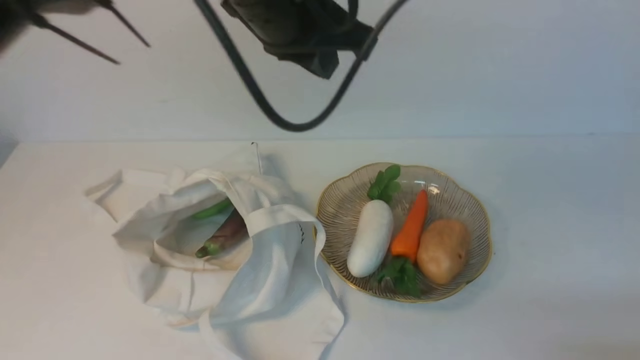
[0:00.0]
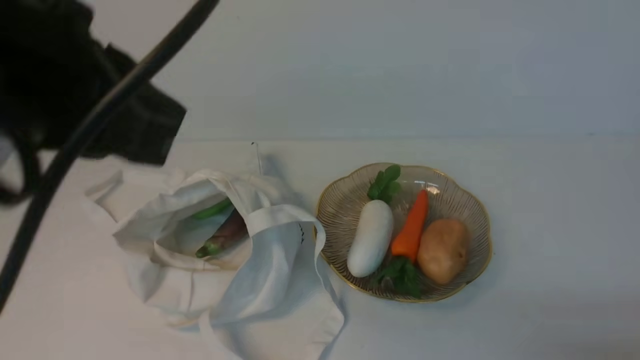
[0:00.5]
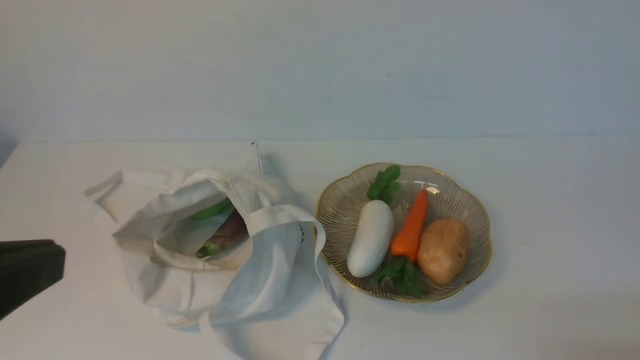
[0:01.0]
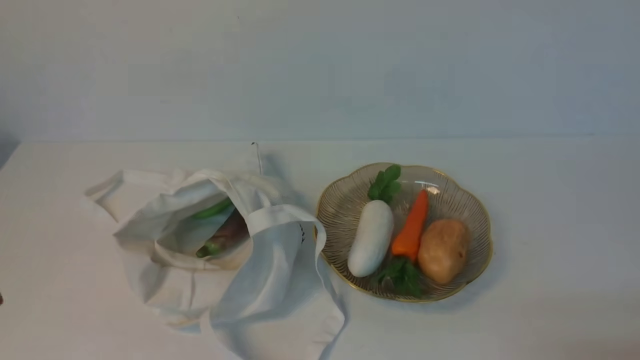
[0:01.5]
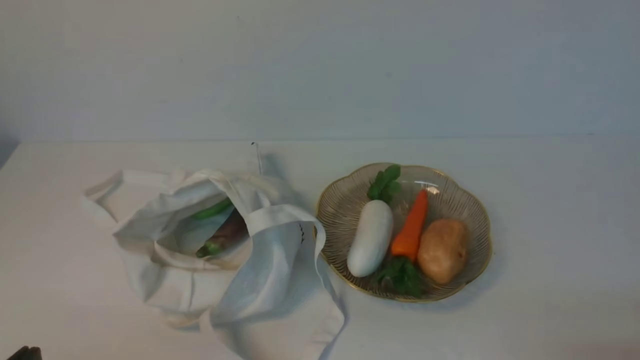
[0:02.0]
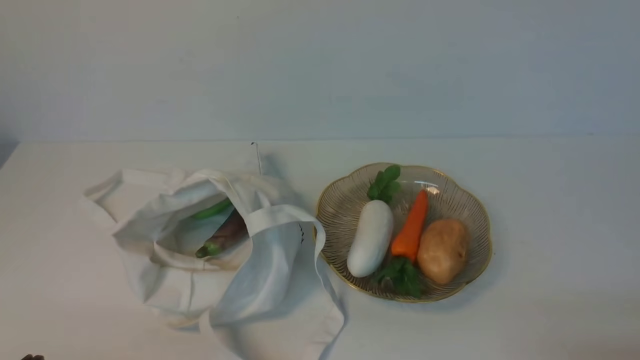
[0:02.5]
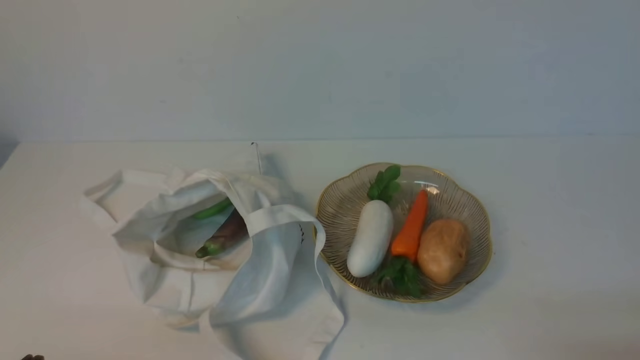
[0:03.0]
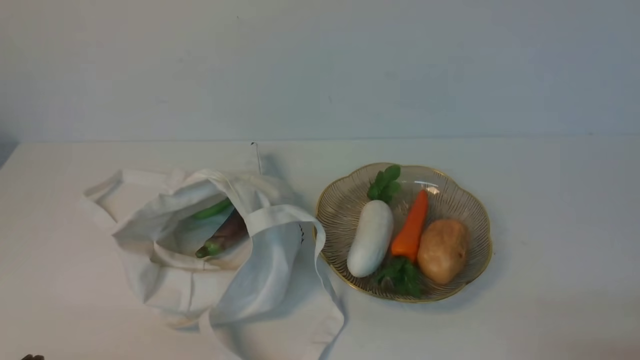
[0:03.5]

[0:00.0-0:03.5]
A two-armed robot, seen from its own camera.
Task of the whole recording: take vegetables from cloth bag on white table place on plate.
0:00.0 to 0:02.0: The left gripper is displaced backward, to the left and downward by some 40 cm.

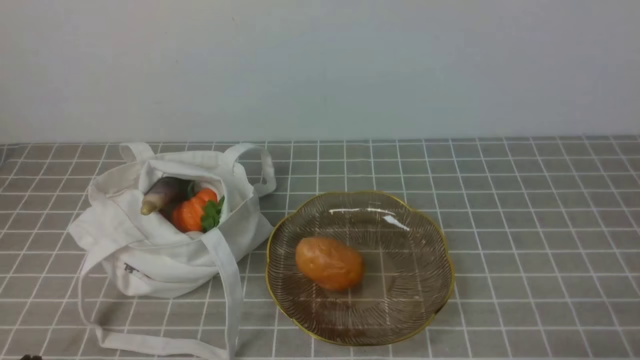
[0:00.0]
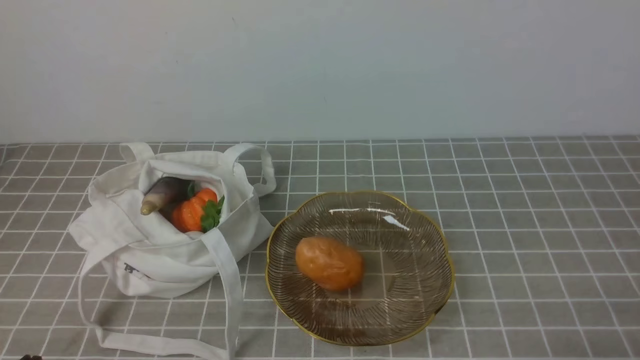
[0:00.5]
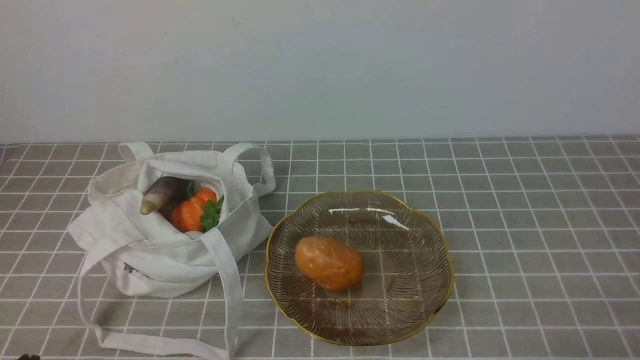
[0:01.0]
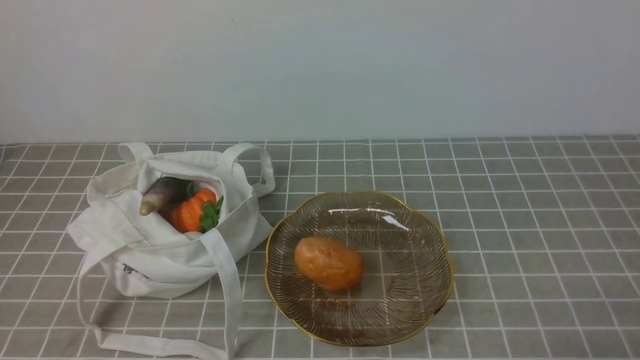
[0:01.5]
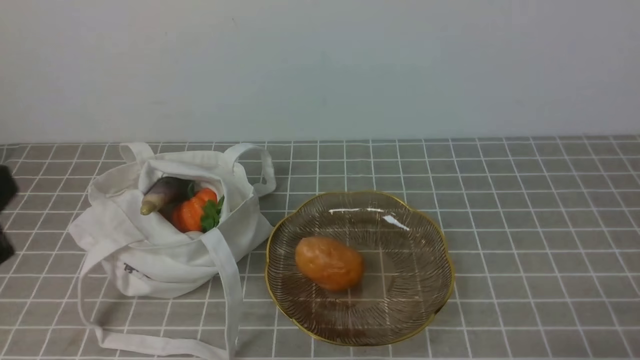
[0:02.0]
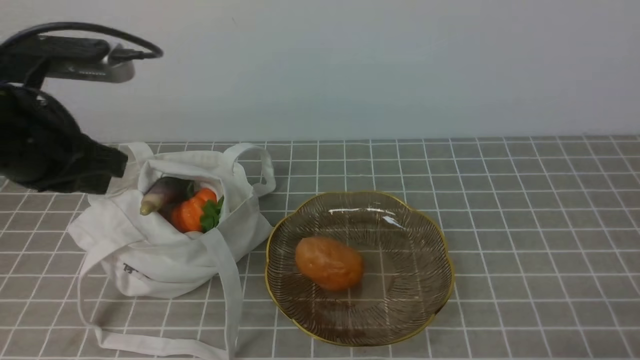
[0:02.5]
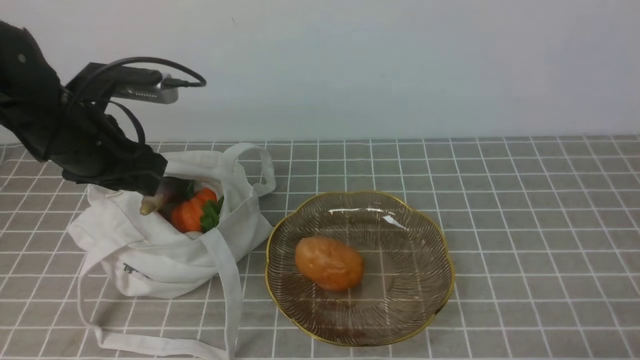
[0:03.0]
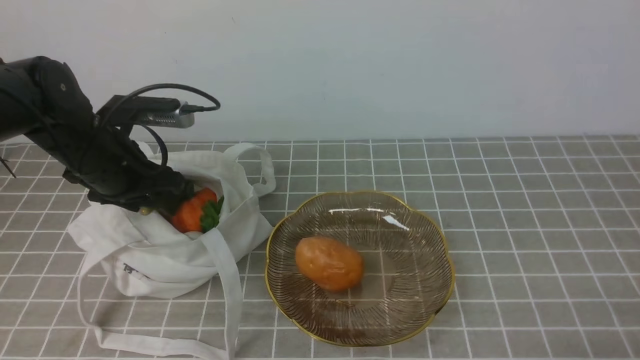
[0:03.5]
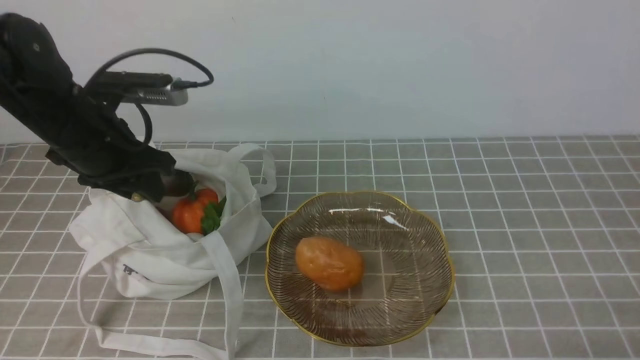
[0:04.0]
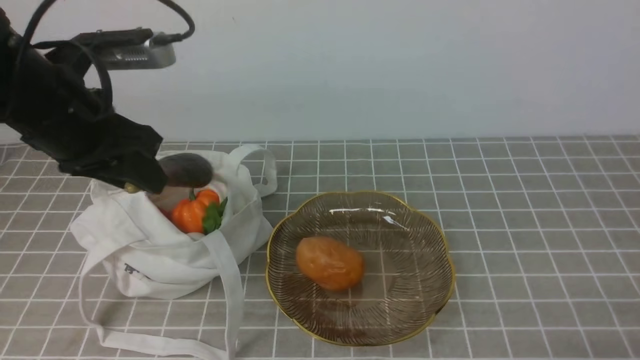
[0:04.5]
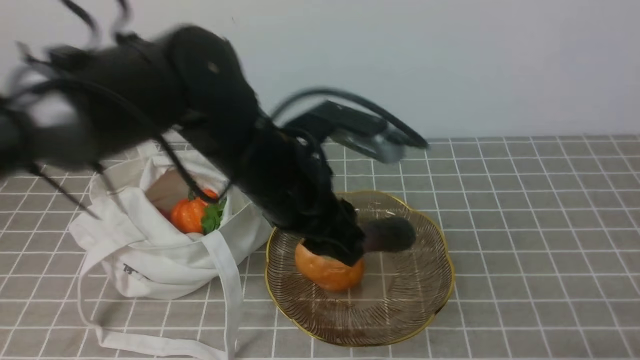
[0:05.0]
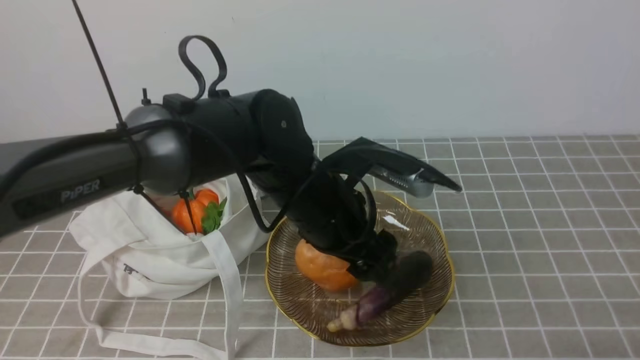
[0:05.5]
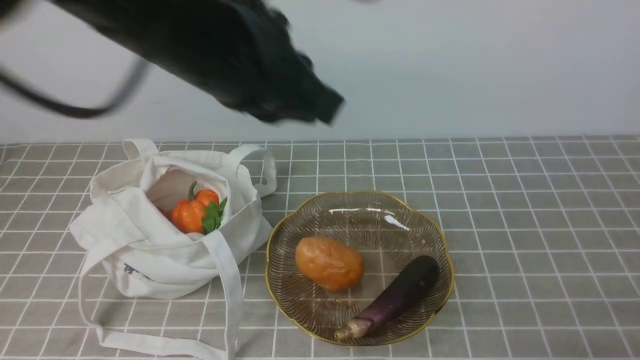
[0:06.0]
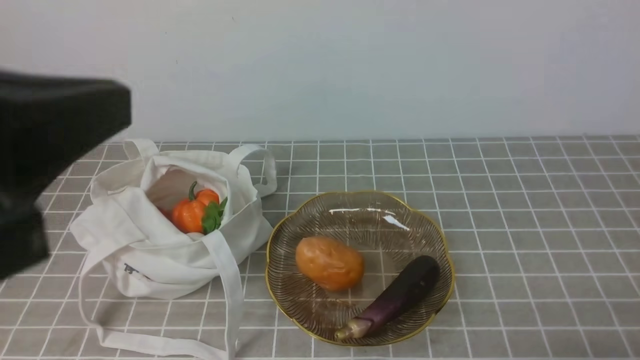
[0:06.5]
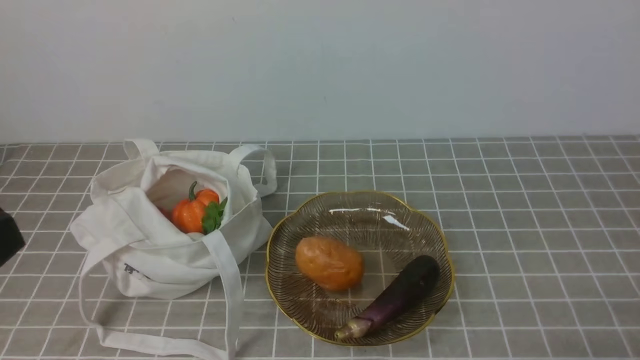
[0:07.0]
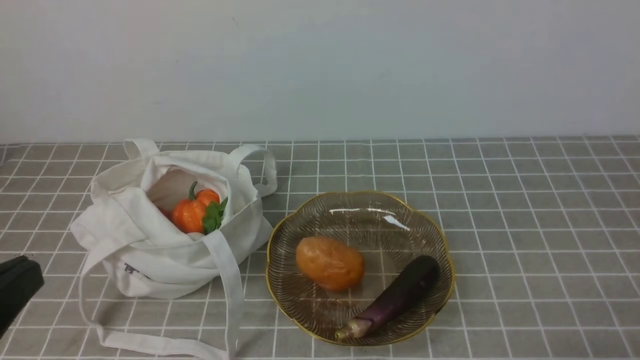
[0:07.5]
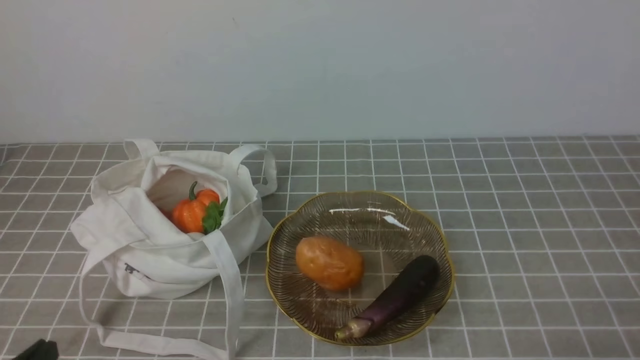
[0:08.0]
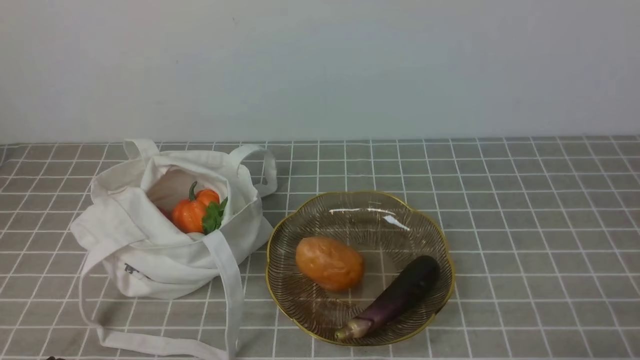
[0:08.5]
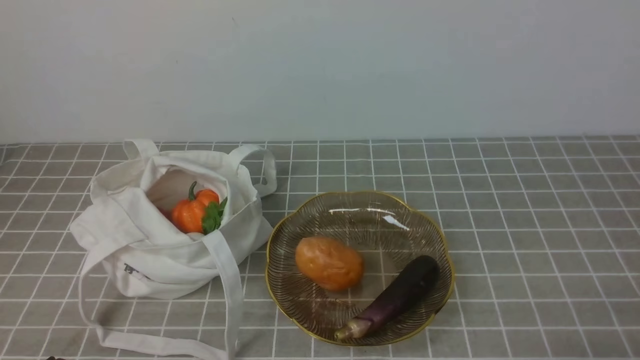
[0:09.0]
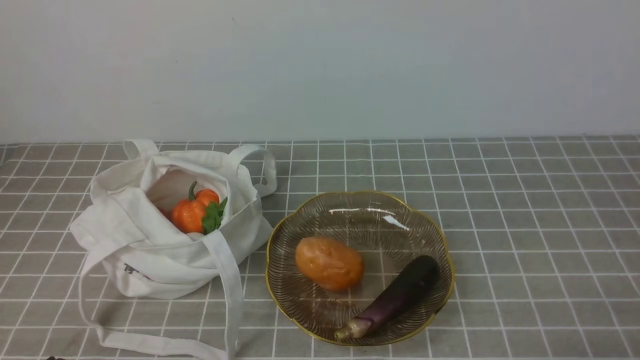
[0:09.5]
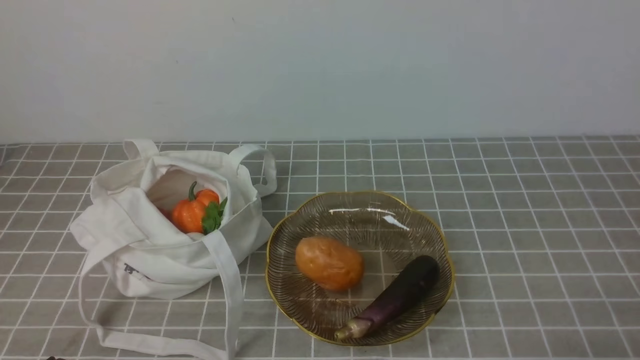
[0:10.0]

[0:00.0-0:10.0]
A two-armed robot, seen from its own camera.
Task of the whole recording: take vegetables from bag on grey coffee tablecloth place on plate.
Step, 0:00.0 to 0:03.5: Grasp the eggplant with left gripper.
Step, 0:04.0 to 0:05.5: Place the eggplant on the plate with left gripper.
0:02.0 to 0:04.0: The left gripper travels forward by roughly 25 cm, and opens.
0:04.0 to 0:06.0: The left gripper travels upward, to the right and backward by about 25 cm, and closes its fingers.
0:06.0 to 0:08.0: The left gripper shifts about 35 cm downward, backward and to the left.
